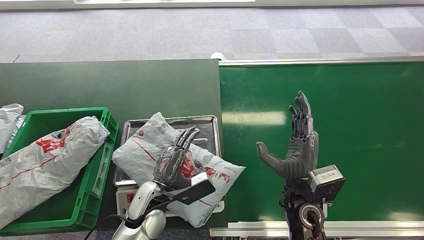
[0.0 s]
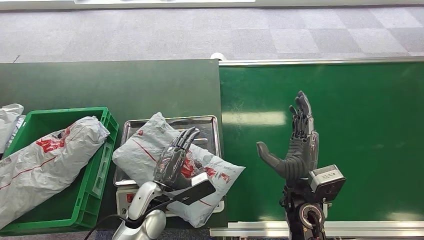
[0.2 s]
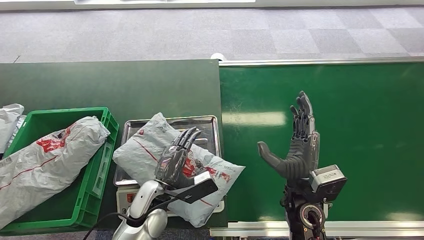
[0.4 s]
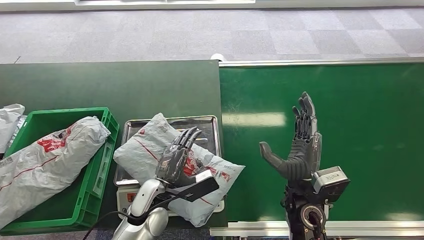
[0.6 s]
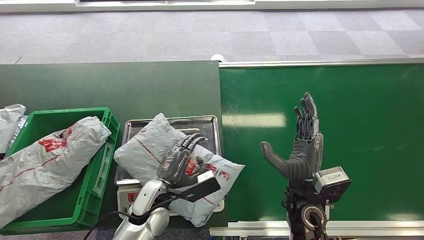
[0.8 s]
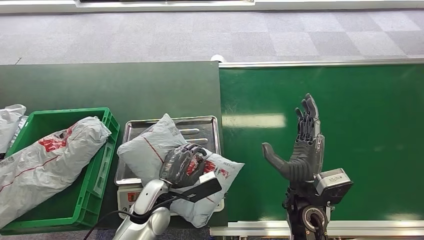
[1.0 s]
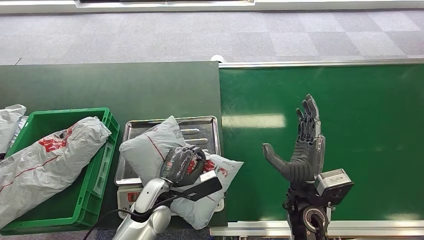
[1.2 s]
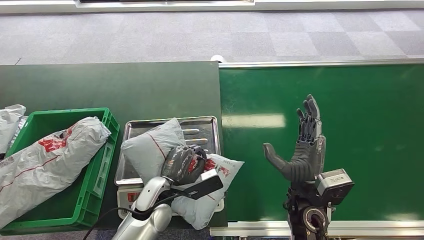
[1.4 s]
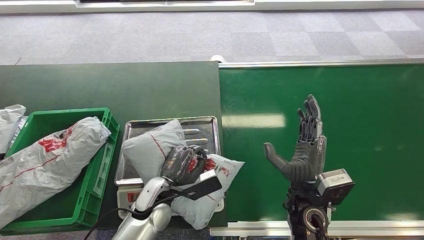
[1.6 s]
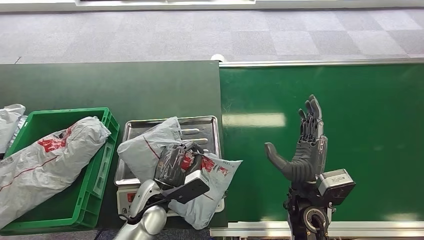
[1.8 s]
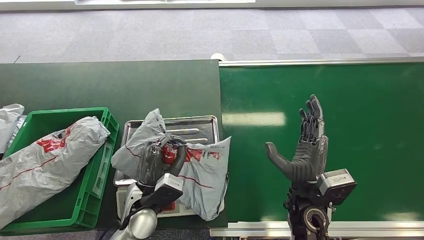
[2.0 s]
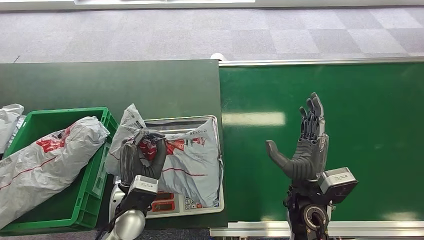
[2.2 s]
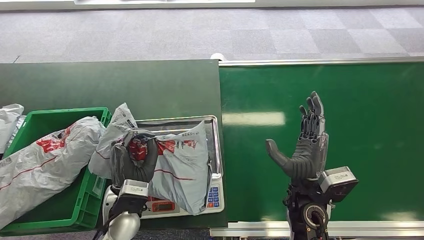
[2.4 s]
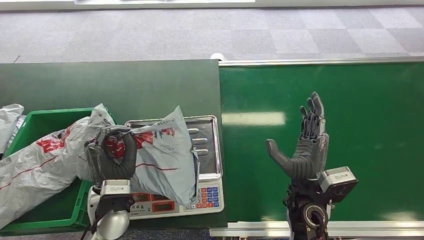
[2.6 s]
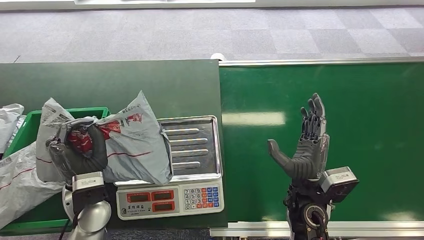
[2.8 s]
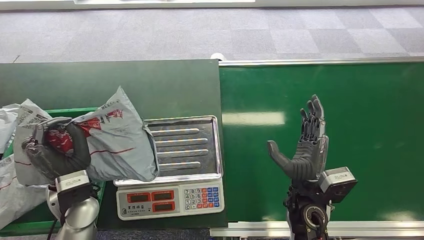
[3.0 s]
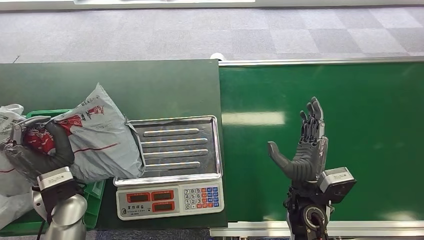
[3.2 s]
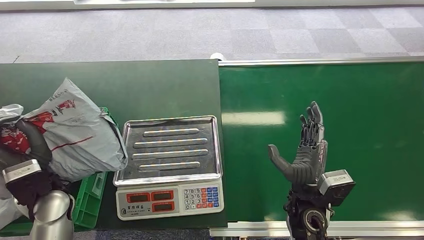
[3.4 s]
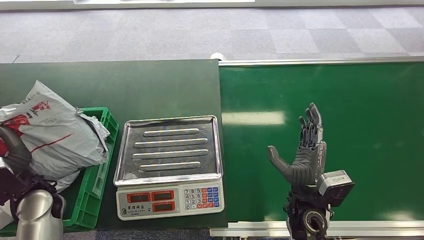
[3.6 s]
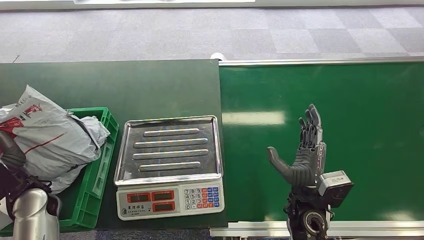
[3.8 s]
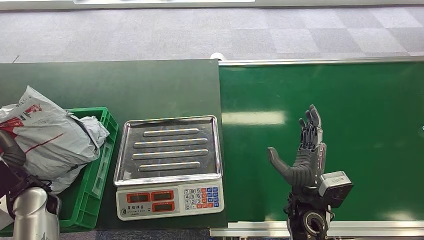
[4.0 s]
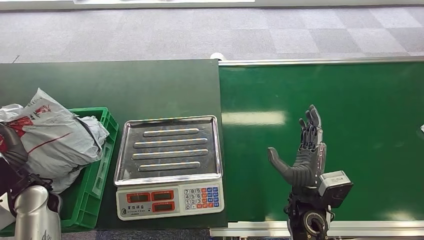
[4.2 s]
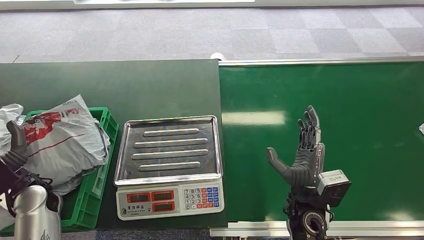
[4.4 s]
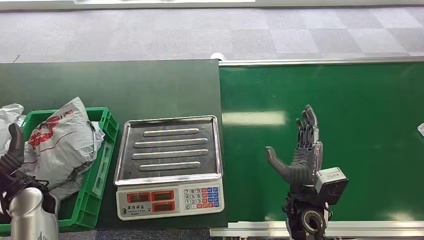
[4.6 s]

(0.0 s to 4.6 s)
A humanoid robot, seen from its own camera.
Step, 1.6 s - 2.8 s: Pick up the package from the inbound machine.
Step, 3.8 s - 4.4 s: Place the package into the parcel locker.
0.0 s - 1.6 s: The hands move only a little.
3.0 s - 4.6 s: The left hand is displaced to the left by about 15 cm.
